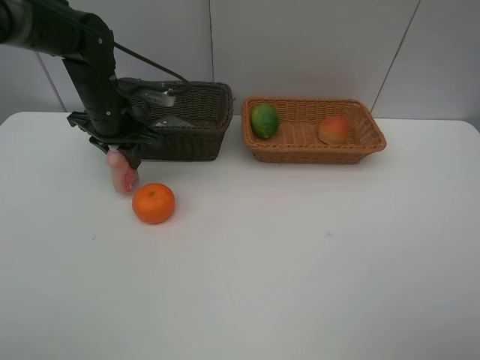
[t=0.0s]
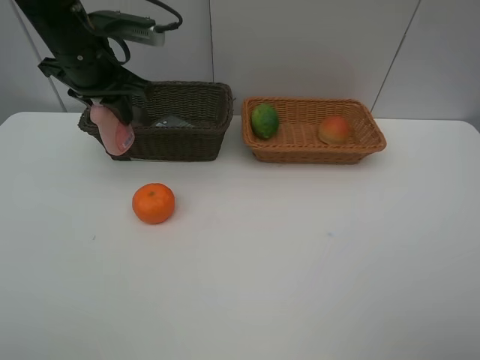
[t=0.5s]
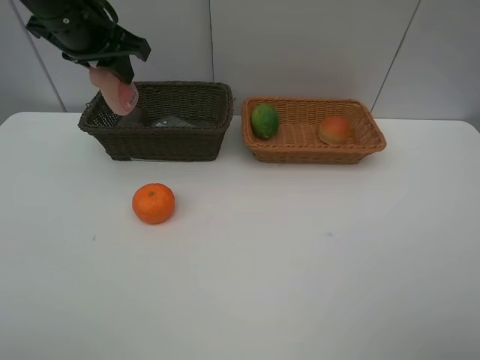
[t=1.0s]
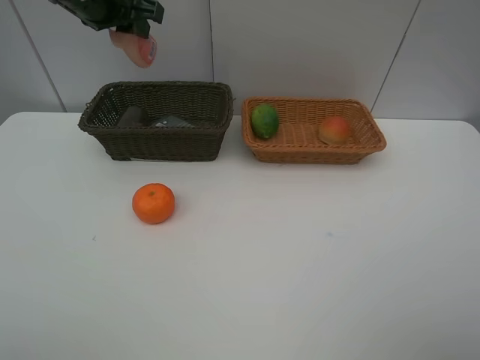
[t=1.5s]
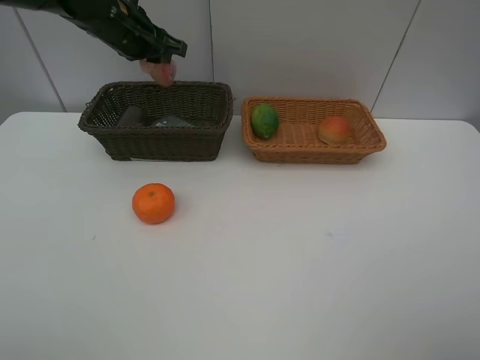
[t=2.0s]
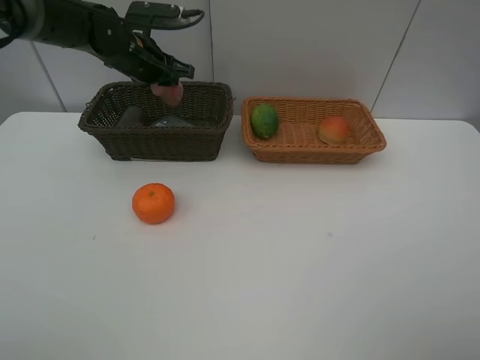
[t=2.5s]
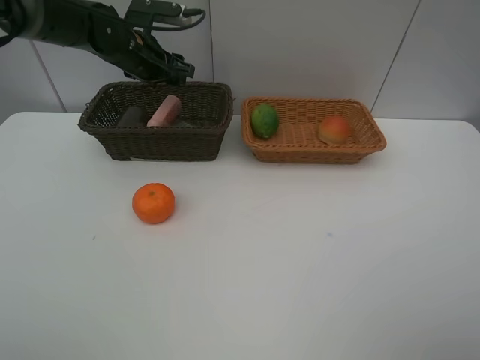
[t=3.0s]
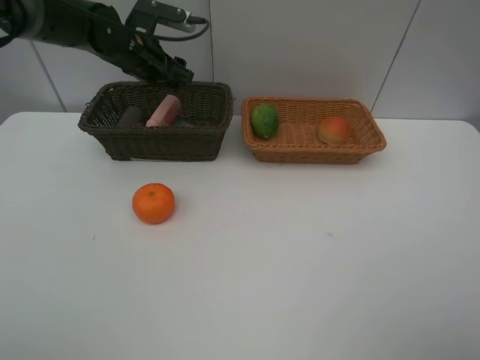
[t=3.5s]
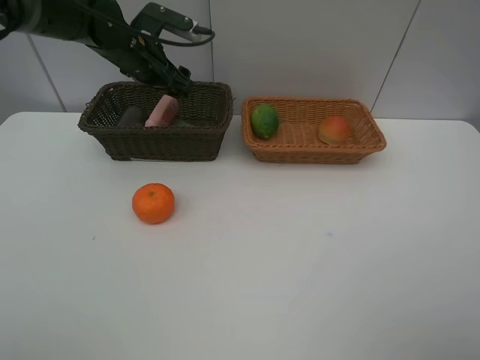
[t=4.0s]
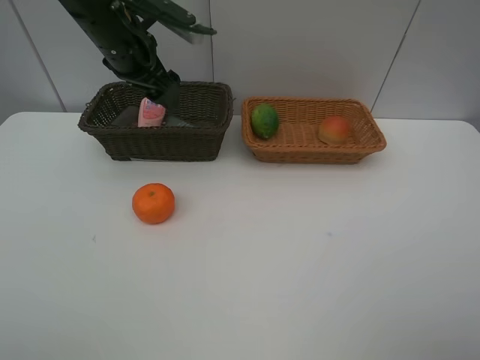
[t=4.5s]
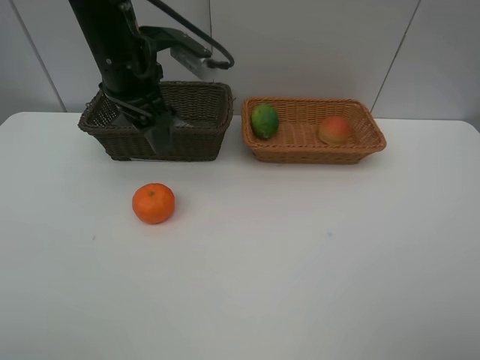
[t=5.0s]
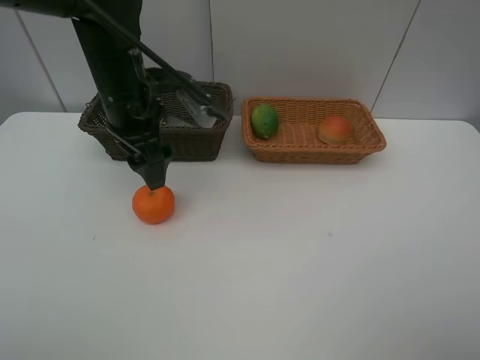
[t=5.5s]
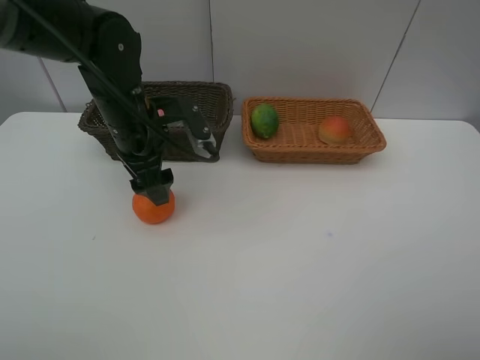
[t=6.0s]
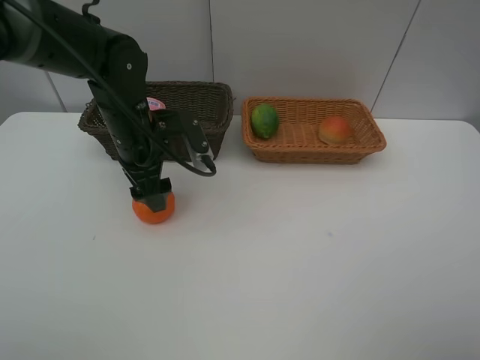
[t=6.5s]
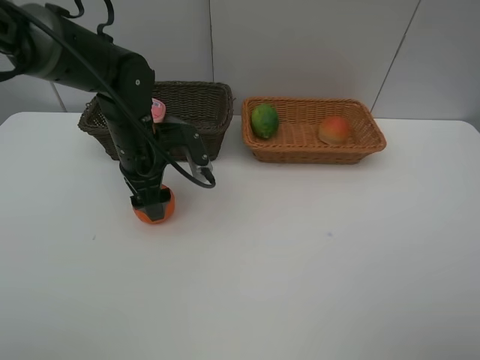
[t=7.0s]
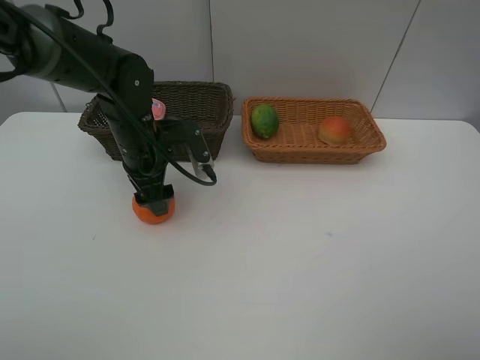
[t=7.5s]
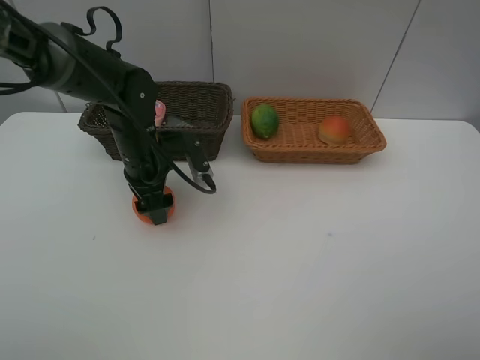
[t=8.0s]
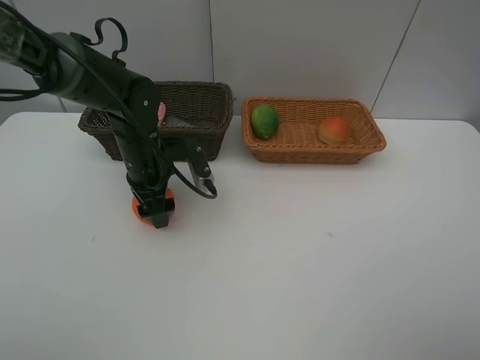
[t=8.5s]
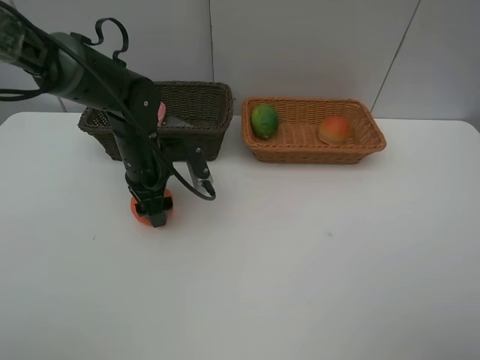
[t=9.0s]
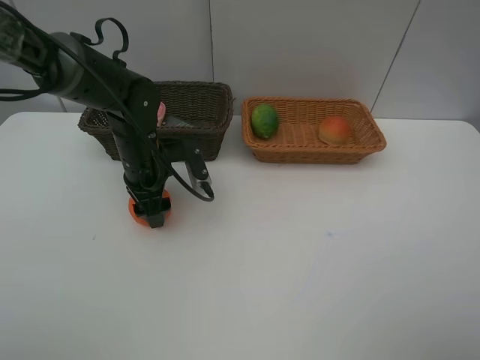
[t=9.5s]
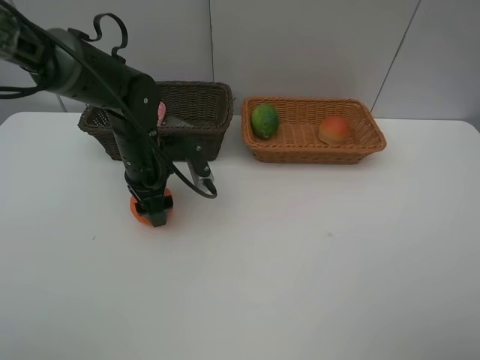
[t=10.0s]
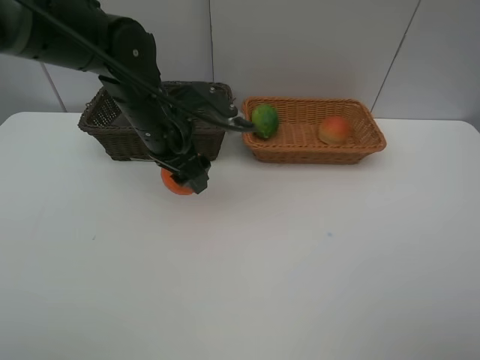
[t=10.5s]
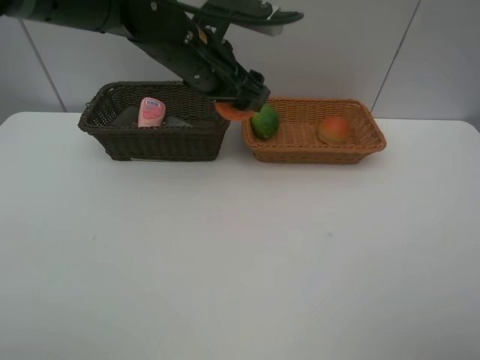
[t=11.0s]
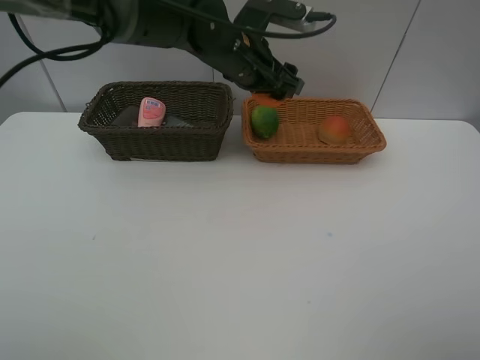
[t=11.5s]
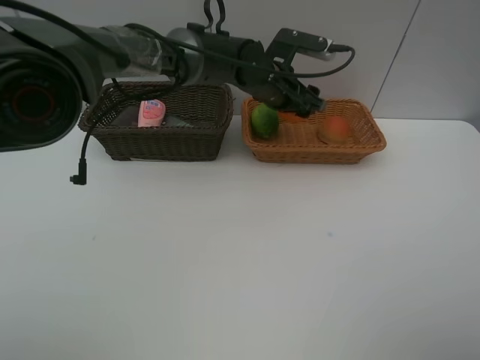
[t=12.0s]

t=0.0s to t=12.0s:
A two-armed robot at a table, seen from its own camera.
Task of the whole recording: place multiple objects separately in different baskets.
t=0.0s to t=2.0s: The left gripper goes about 10 cm upward.
t=2.0s to t=4.0s: The left gripper ends up approximately 5 cm from where it was, and opens up.
t=4.0s to t=6.0s: The left gripper moves backward, about 15 cm.
t=6.0s to t=8.0s: The left gripper travels downward by roughly 5 cm.
t=8.0s to t=10.0s: Neither gripper changes place.
t=10.0s to t=12.0s: The left gripper moves to the right and forward, some 20 cm.

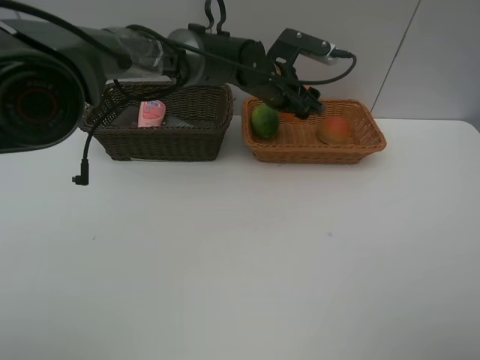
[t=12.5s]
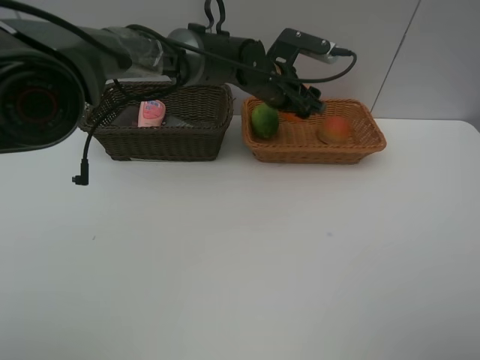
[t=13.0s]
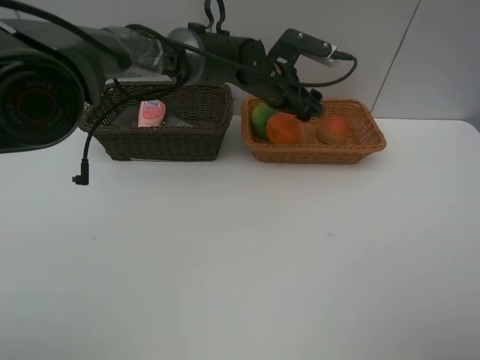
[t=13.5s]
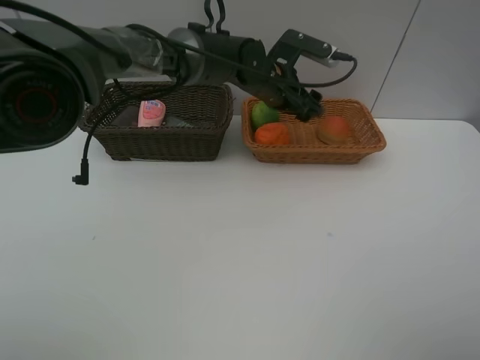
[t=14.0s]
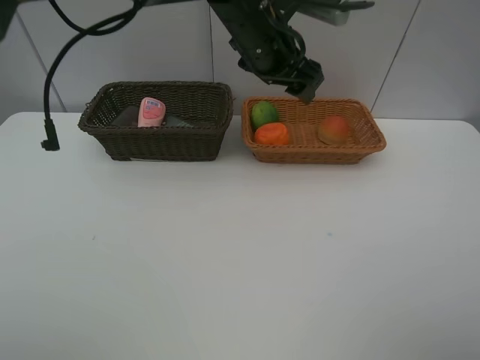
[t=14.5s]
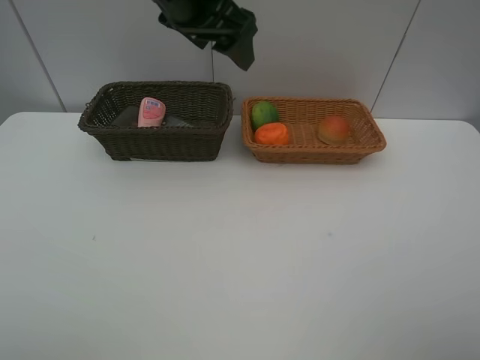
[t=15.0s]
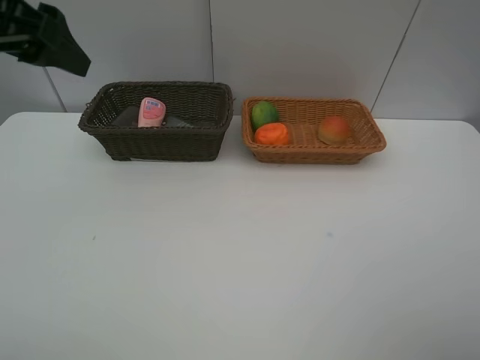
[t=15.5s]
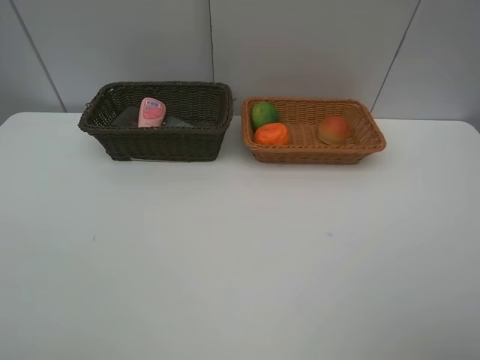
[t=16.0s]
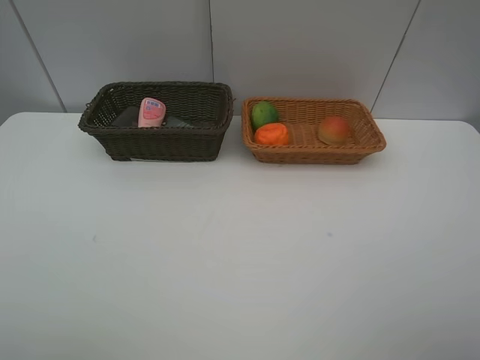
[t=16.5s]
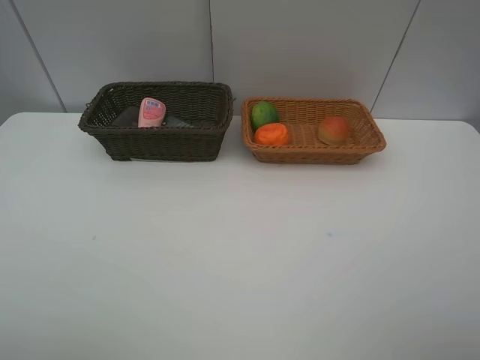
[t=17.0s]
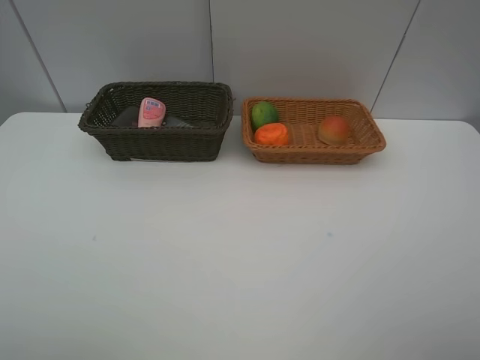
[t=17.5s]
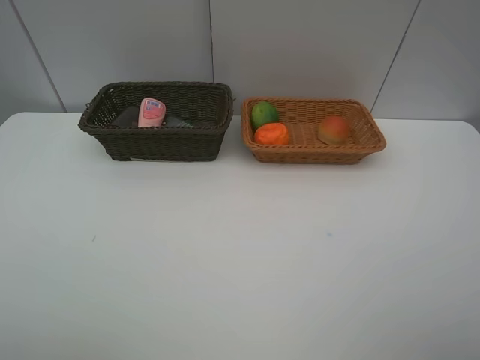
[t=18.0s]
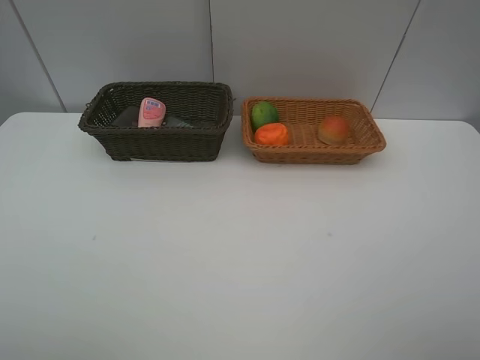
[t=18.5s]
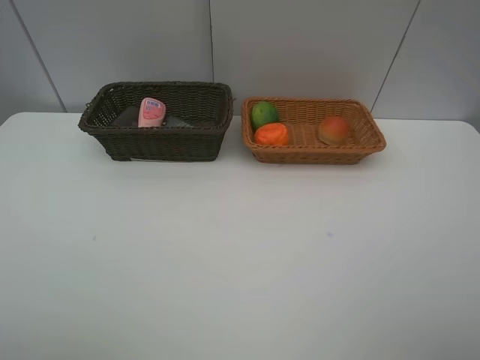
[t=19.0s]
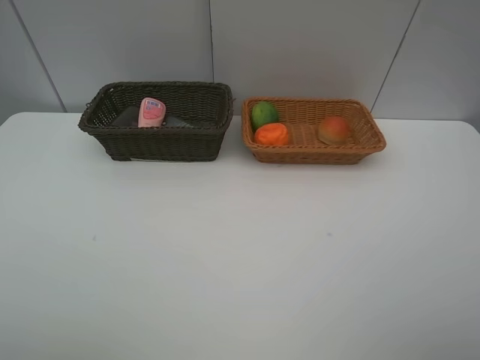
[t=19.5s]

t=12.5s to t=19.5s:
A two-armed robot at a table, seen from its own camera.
Task of the whole recording: place multiple objects separately in different baskets.
t=12.5s to t=14.5s: The left gripper shifts approximately 10 cm upward.
t=14.5s to t=16.0s: The left gripper goes about 40 cm to the left and backward.
t=17.5s to t=19.5s: Both grippers stay about where they are.
